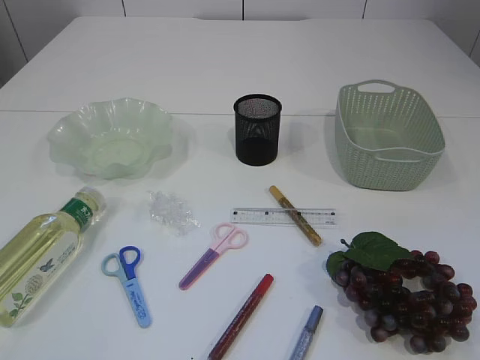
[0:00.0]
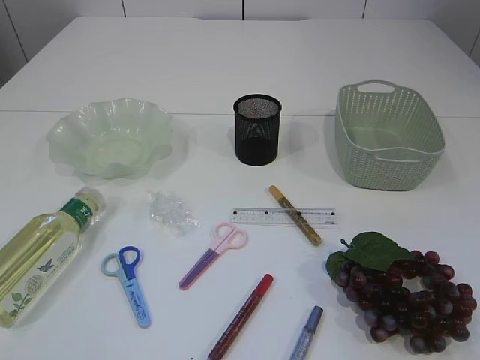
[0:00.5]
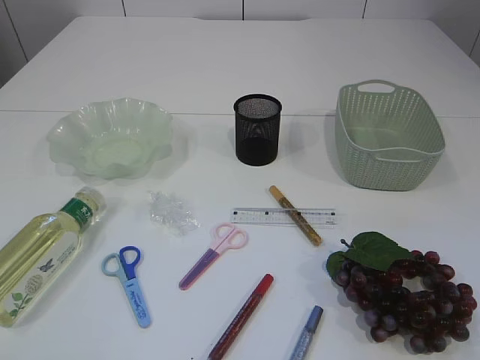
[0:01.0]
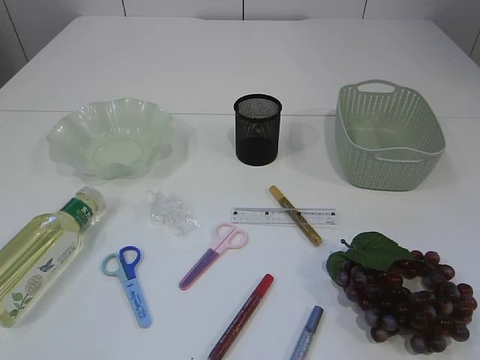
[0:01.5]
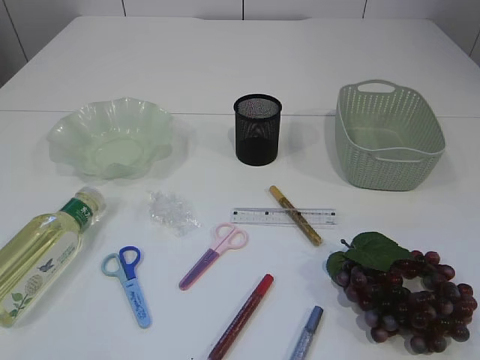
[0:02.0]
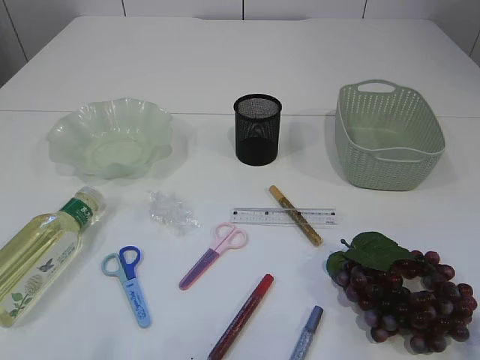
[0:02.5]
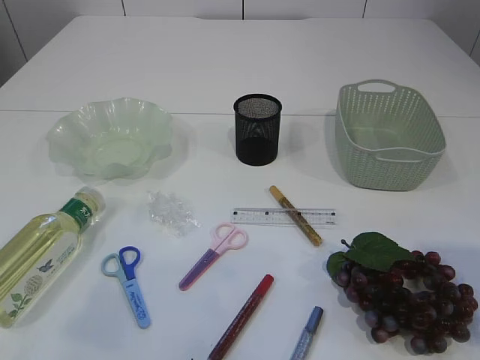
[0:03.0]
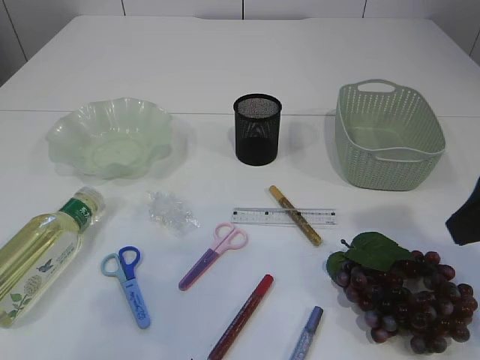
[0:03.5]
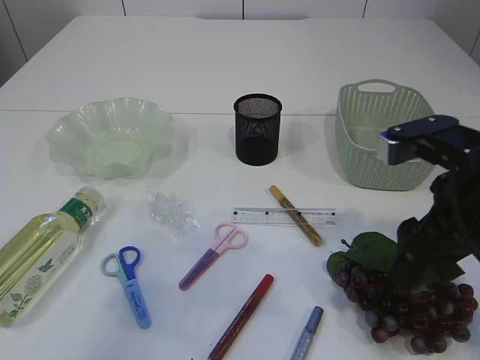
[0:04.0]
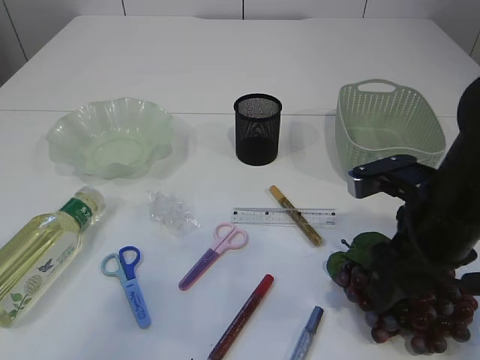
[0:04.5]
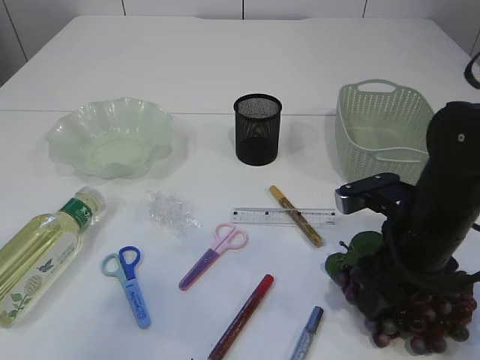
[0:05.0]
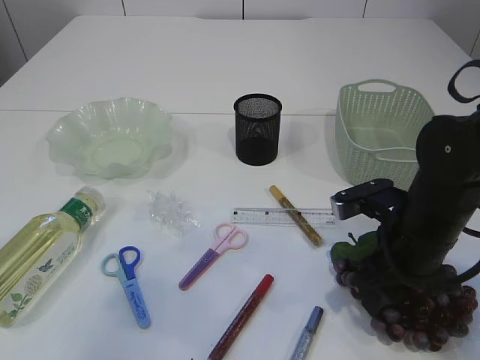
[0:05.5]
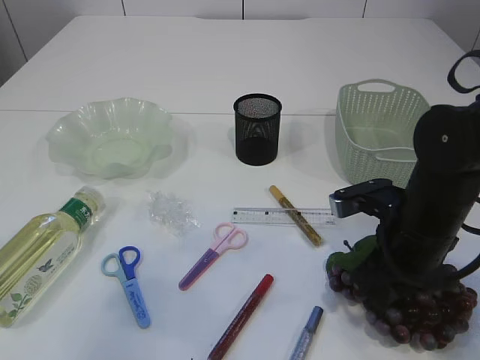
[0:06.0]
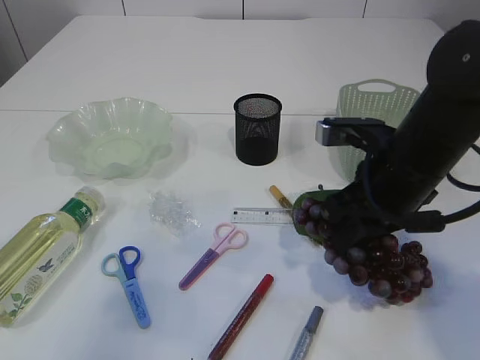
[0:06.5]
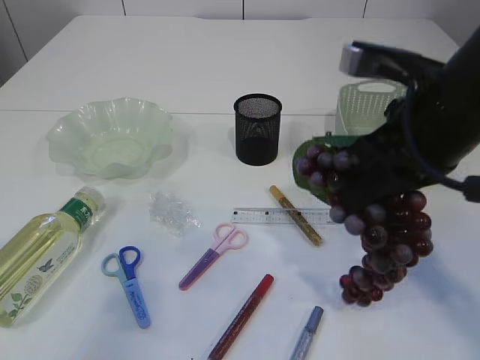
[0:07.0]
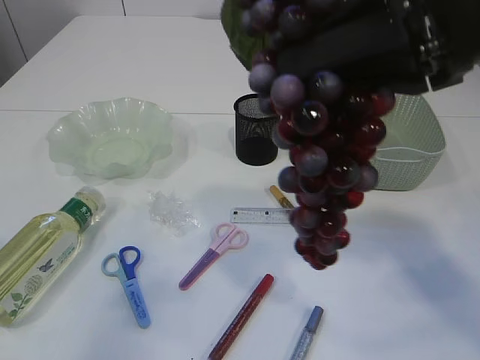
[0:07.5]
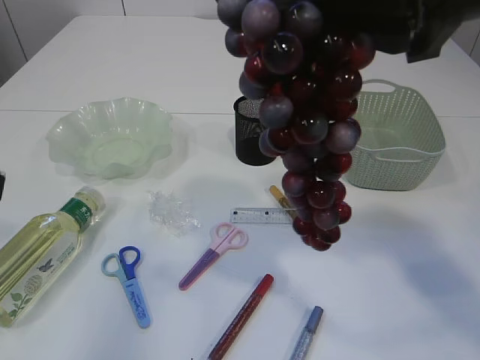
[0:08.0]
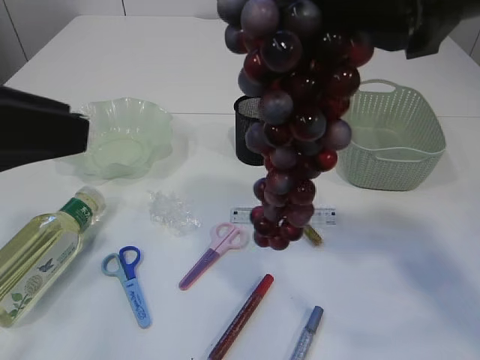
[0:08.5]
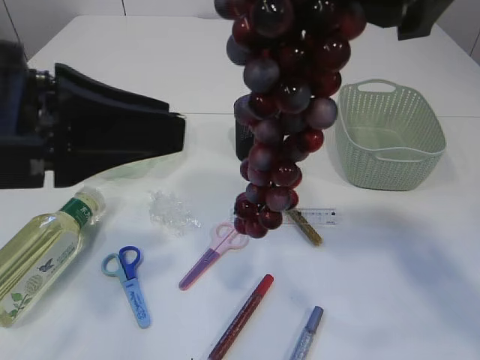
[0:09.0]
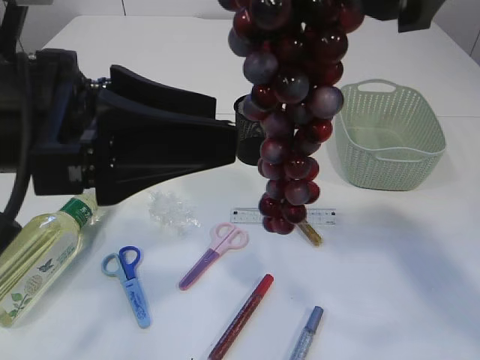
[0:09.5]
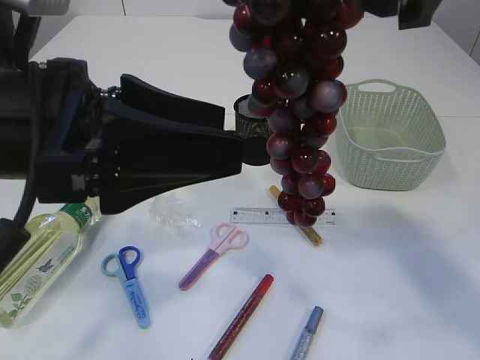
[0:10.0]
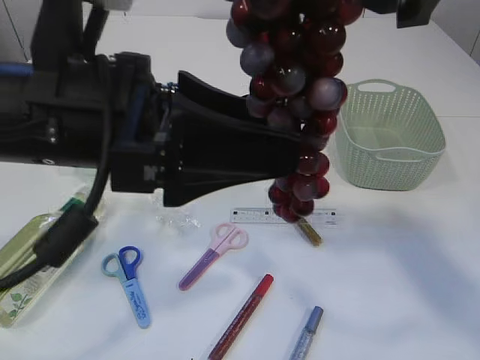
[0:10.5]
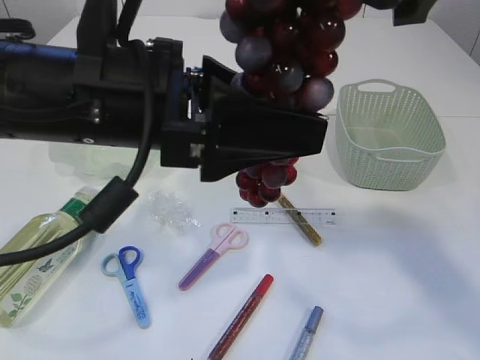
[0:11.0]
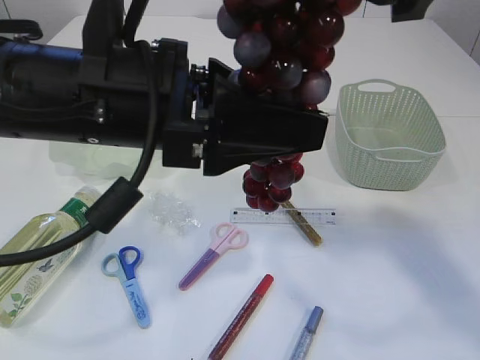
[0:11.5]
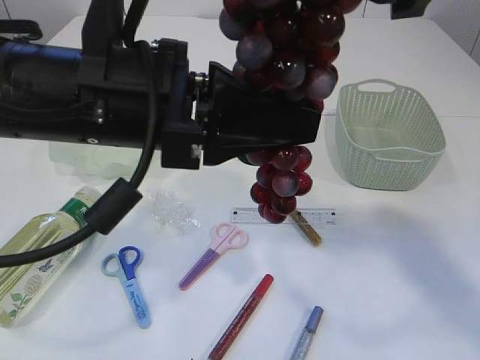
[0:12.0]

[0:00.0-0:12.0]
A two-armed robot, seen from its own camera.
Step, 0:00.0 to 0:07.0: Pick up the grapes.
0:02.0 to 0:04.0: The right gripper travels forward by some 25 cm; the left gripper is displaced forward by some 15 cm.
0:04.0 to 0:06.0: The right gripper shifts roughly 10 cm downward, and closes its fingers.
0:06.0 to 0:08.0: The right gripper shifts about 25 cm upward.
0:08.0 to 0:10.0: The left gripper is displaced to the right by some 10 cm, and opens.
0:10.0 to 0:12.0: The left gripper travels to the right by approximately 5 cm, and closes its fingers.

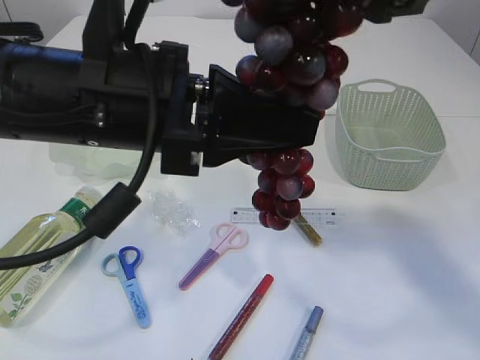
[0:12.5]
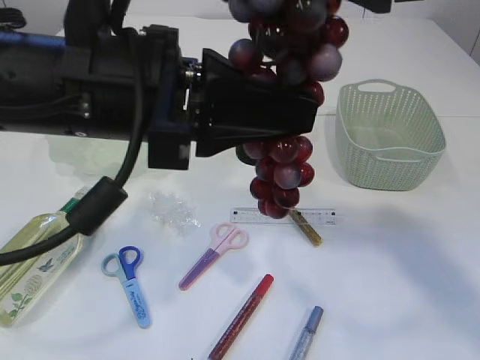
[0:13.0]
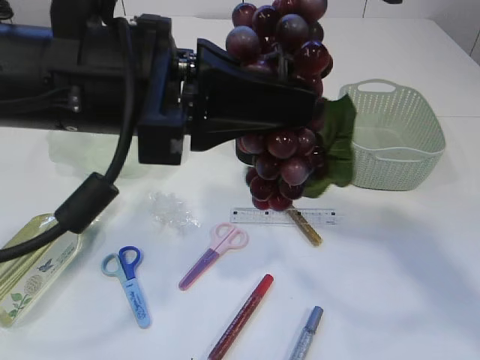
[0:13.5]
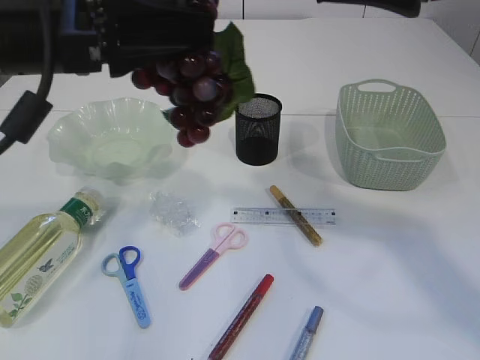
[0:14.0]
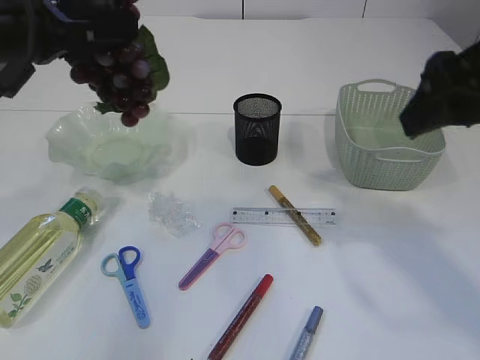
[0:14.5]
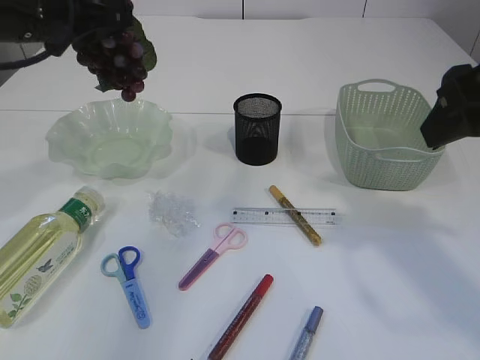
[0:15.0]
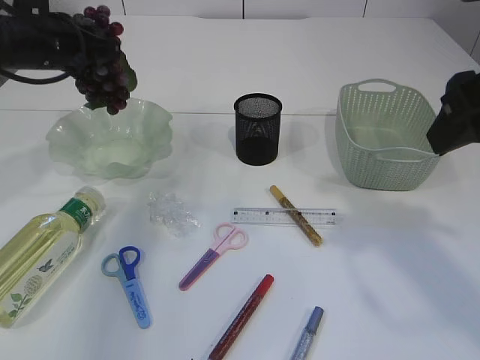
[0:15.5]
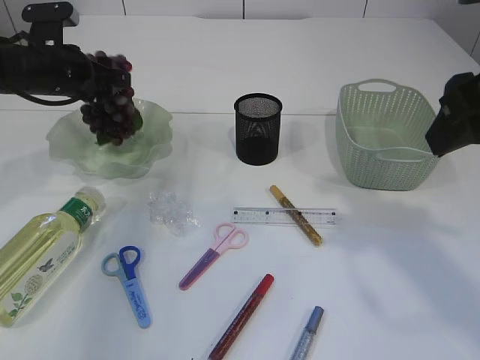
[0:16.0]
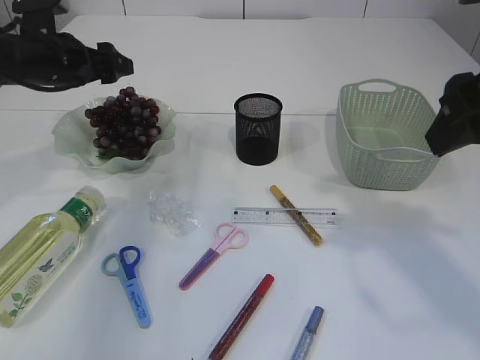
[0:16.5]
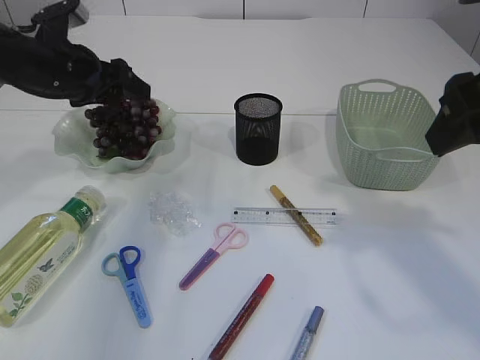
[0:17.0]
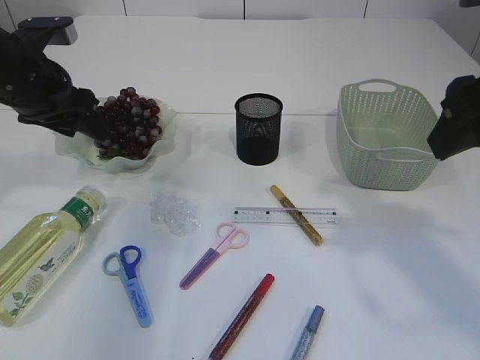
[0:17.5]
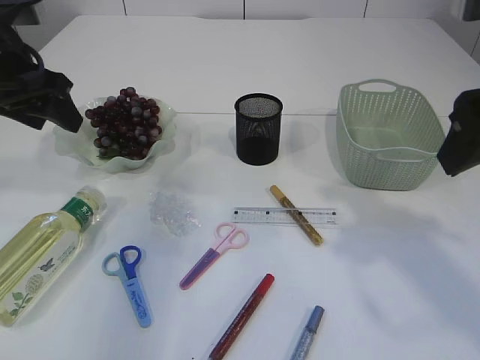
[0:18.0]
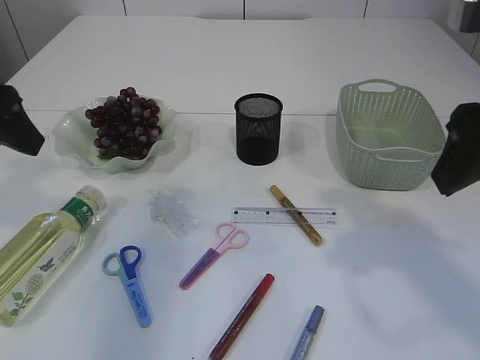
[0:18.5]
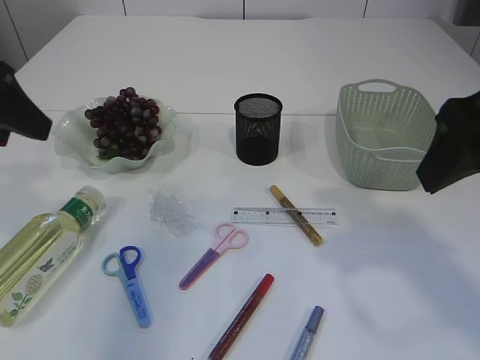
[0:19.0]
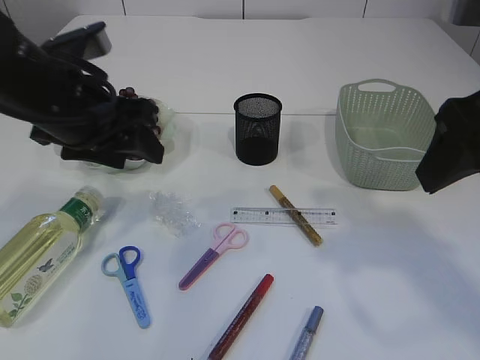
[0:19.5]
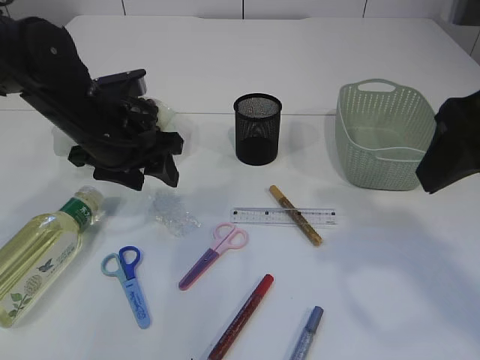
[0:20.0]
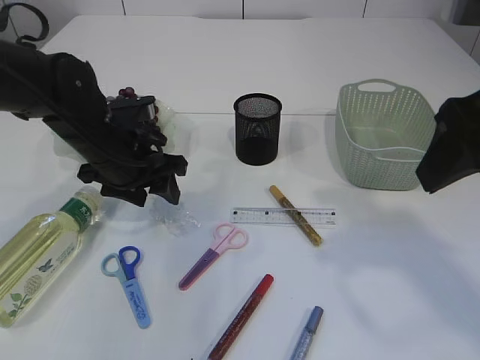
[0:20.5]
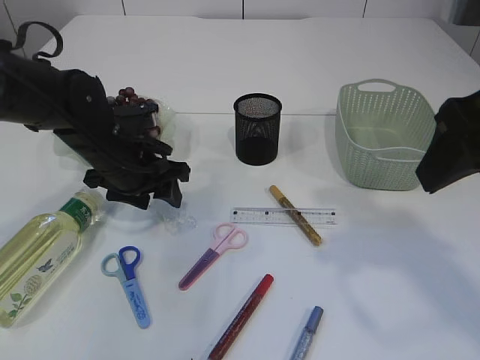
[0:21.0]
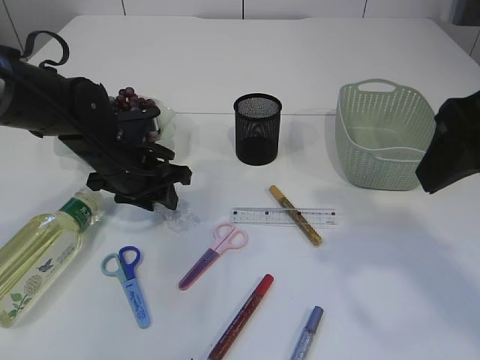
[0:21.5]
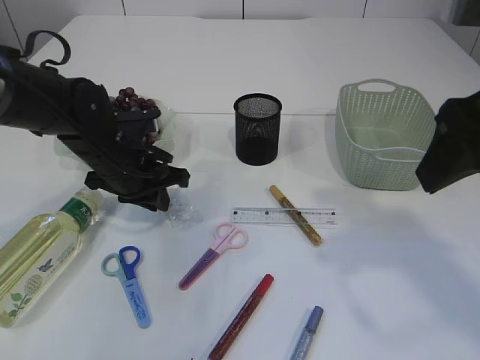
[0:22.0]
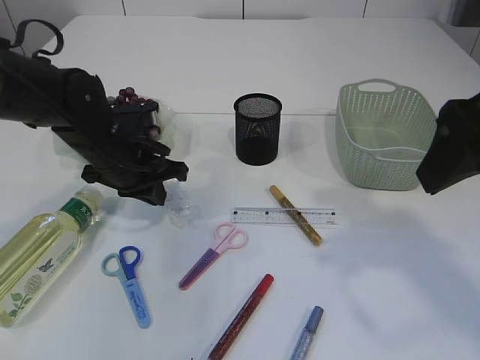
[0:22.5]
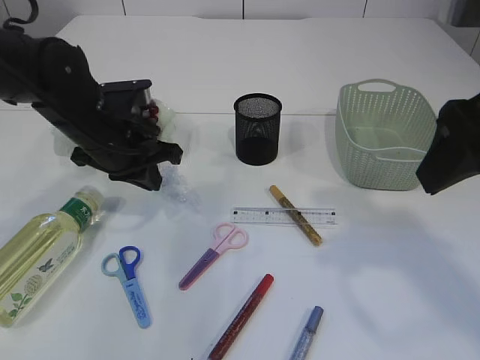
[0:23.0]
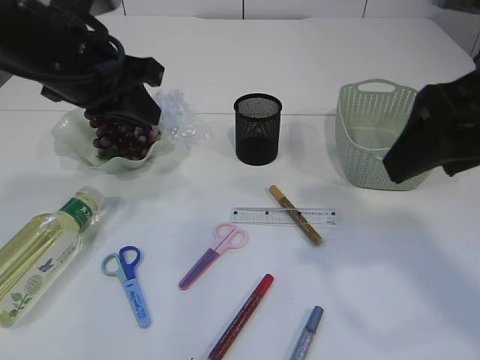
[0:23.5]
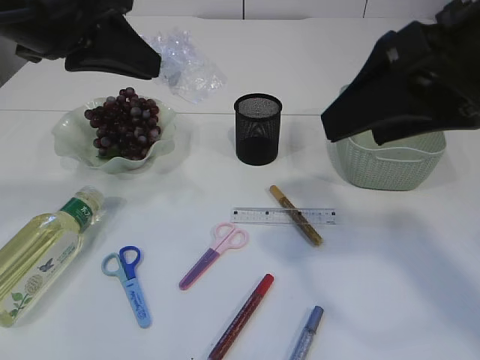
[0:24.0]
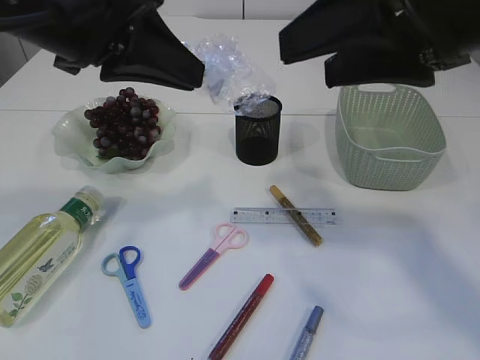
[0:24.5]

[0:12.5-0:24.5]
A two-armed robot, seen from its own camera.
Step, 0:14.0 to 0:16.5: Place the grapes in the plate.
Step, 0:17.0 to 0:23.0: Pick up the plastic.
0:12.5 to 0:14.5: The left gripper goes some 15 cm to the left and forward. The right gripper heads to the right and downward, covering about 10 cm.
0:14.5 to 0:16.5: The left gripper heads forward and downward, covering some 20 cm, and opens up.
0:16.5 to 0:18.5: The left gripper shifts roughly 20 cm backward and upward.
0:18.5 to 0:20.5: The left gripper moves downward, to the right and forward, about 20 cm.
0:20.5 to 0:22.5: The left gripper closes.
0:22.5 to 0:24.5: The right gripper moves to the left, roughly 5 cm, while the left gripper travels upward and backward by roughly 25 cm.

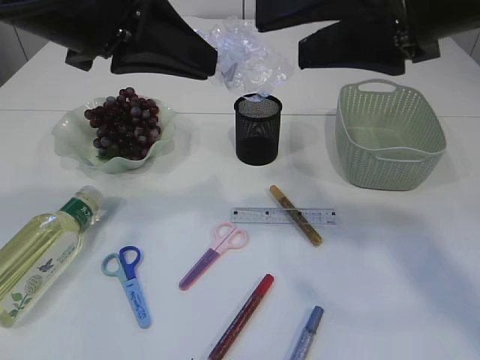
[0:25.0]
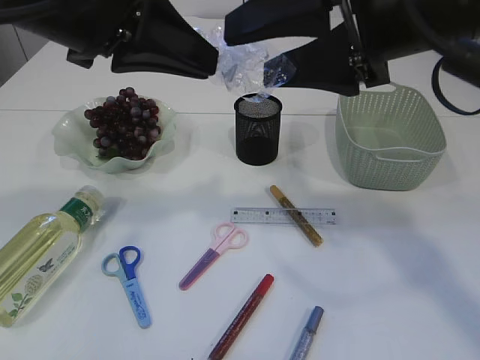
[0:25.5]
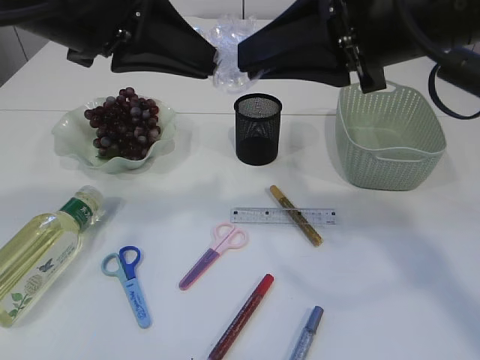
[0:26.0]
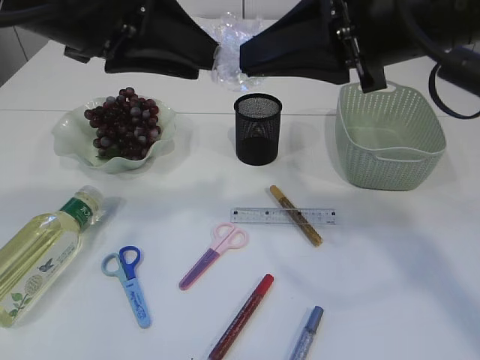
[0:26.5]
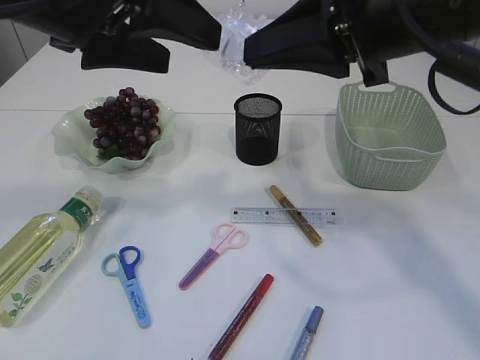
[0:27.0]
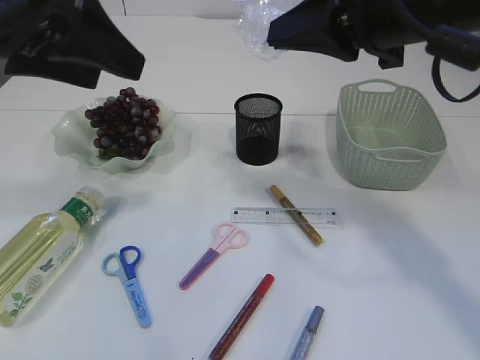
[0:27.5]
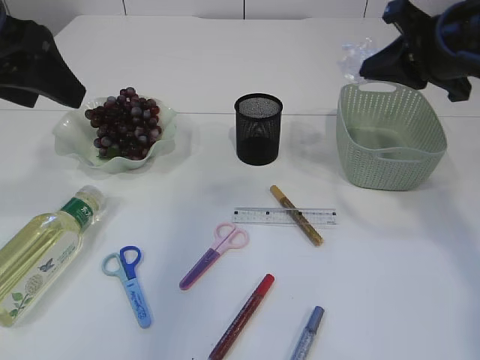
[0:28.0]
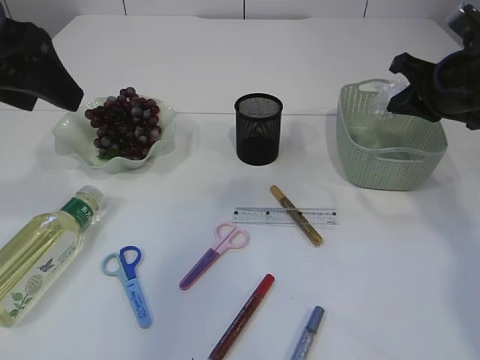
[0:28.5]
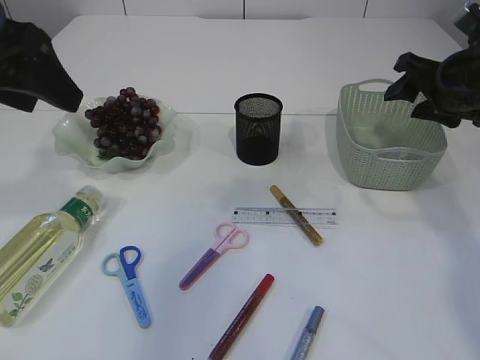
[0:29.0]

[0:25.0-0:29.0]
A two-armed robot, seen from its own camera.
Step, 0:25.0 to 0:27.0: Hand over the plastic.
0:25.0 to 0:27.0: The left gripper opens. The right gripper closes up.
0:27.0 to 0:29.0: The left gripper goes roughly 10 cm to the left, while the right gripper moves to the right, forward and downward, some 25 cm, and opens its fingers.
